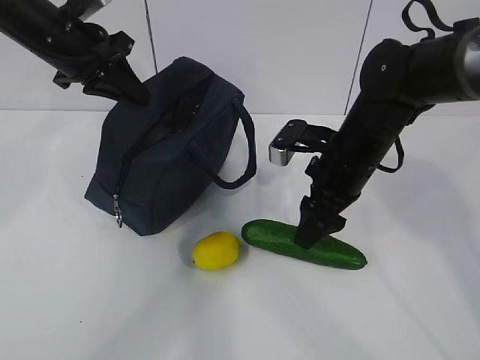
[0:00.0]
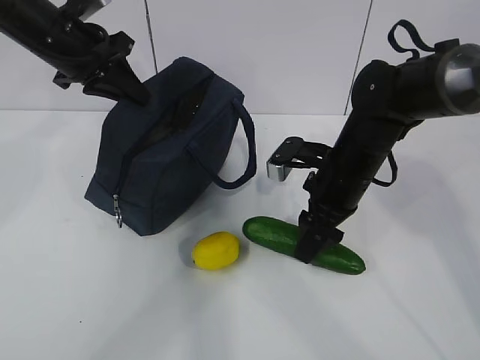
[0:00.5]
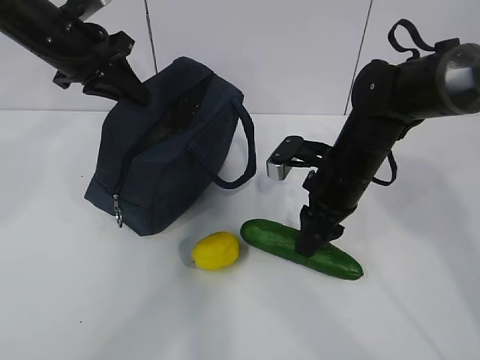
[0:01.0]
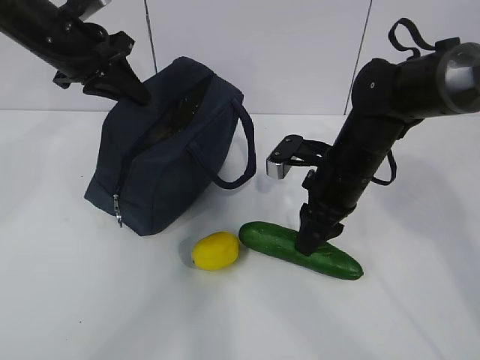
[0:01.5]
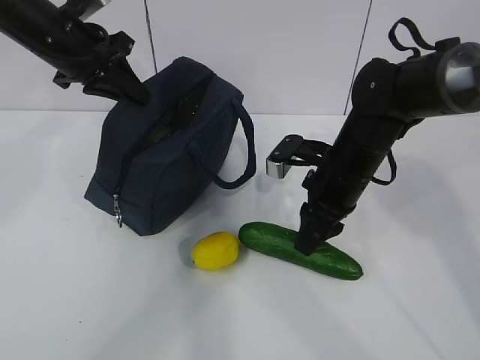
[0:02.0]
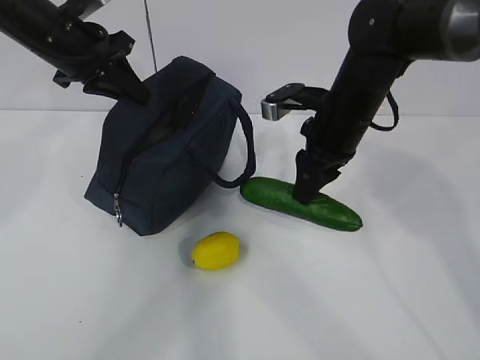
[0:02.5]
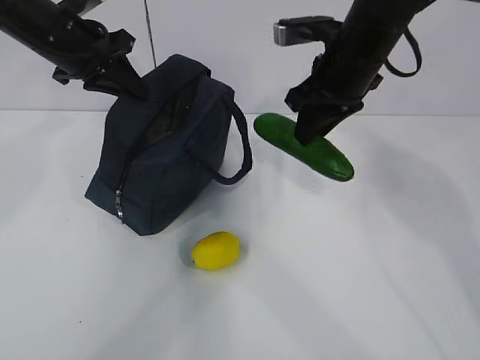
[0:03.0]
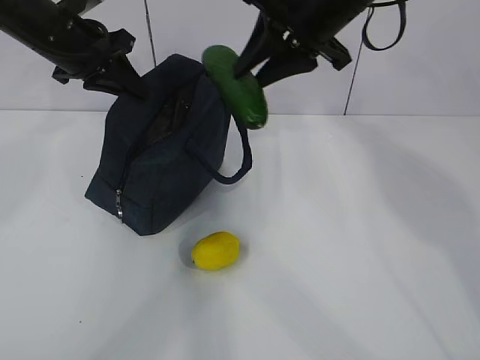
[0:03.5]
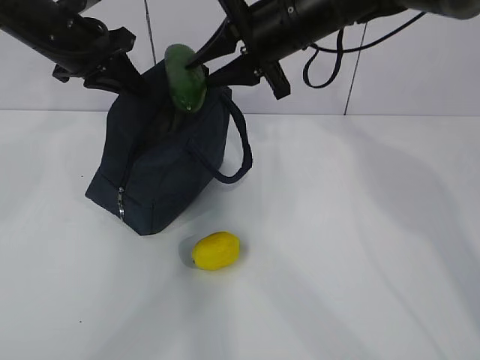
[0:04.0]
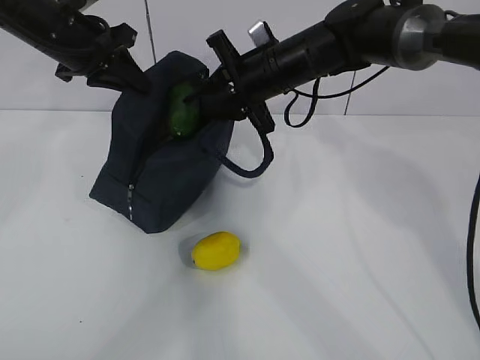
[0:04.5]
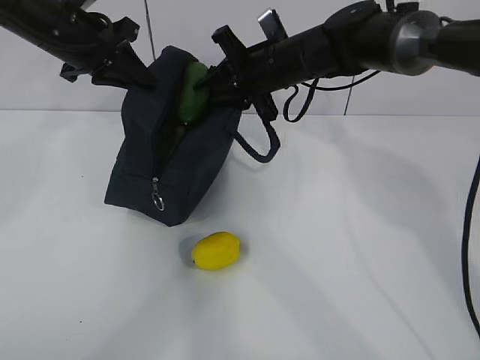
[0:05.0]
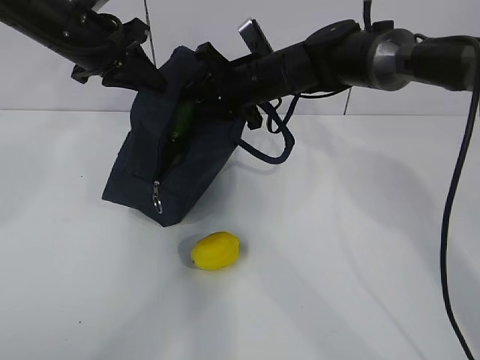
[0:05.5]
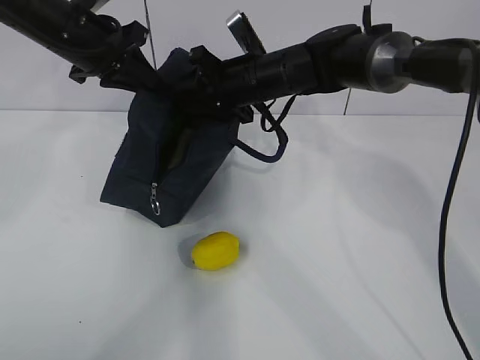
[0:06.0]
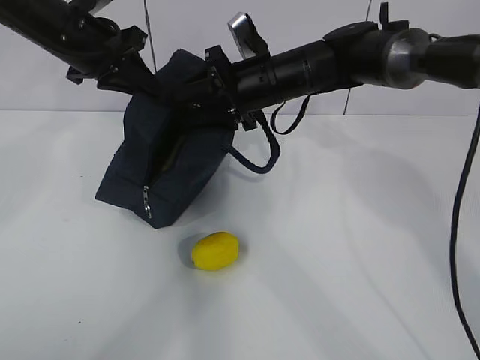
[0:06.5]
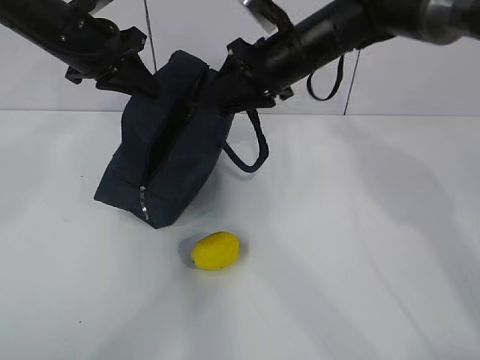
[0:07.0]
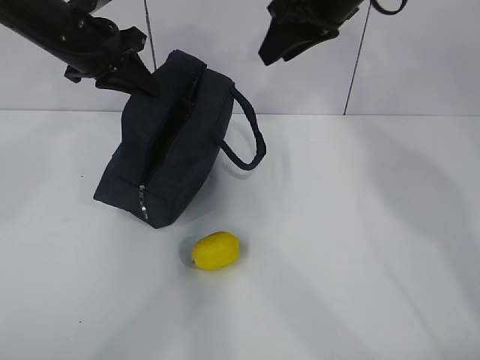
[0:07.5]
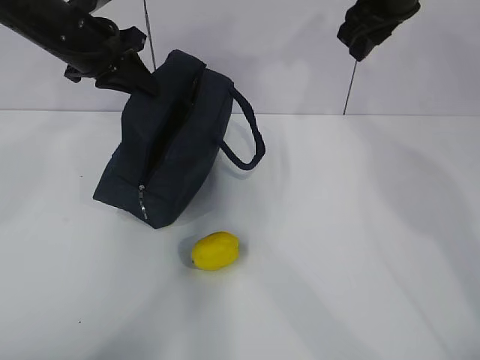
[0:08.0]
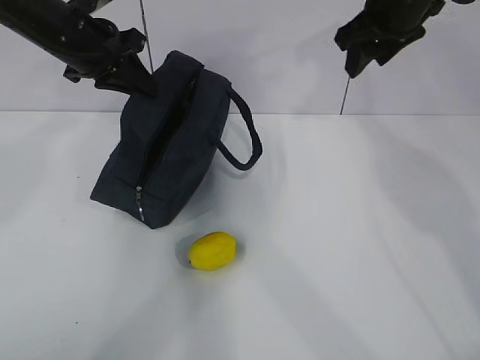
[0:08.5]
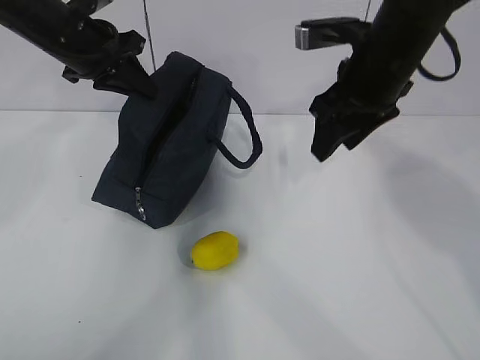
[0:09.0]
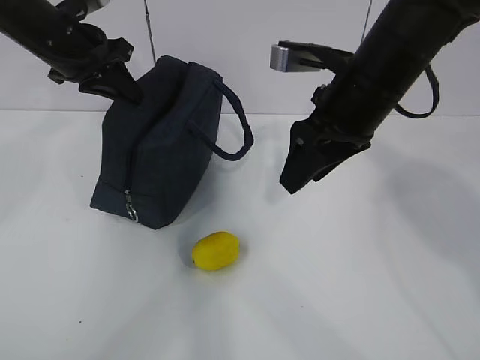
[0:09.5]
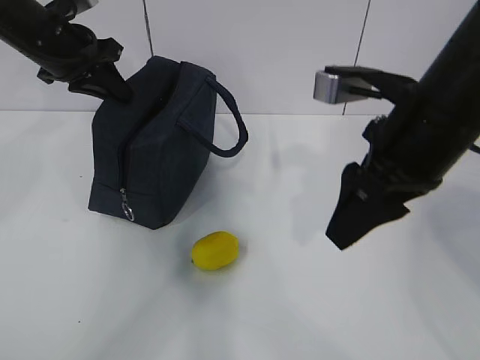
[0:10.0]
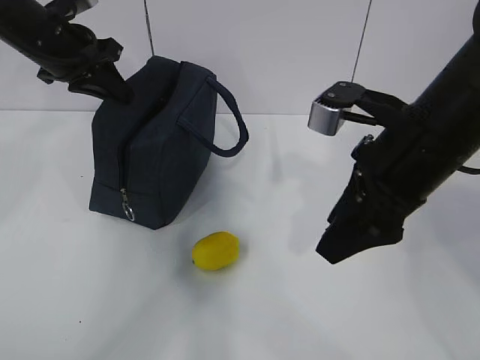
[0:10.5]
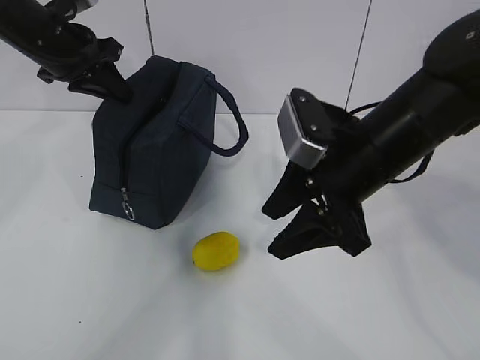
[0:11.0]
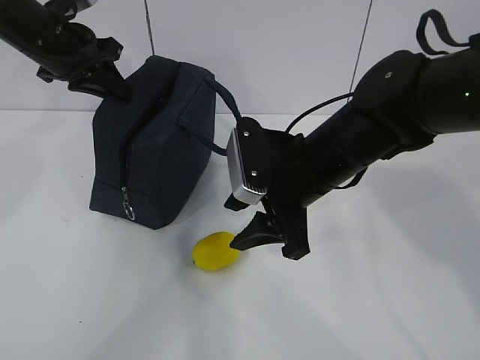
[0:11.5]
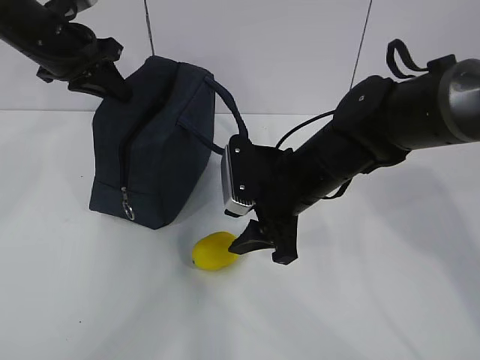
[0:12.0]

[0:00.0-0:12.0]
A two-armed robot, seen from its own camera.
Step, 0:00.0 to 0:06.5: Grab the pear with your right hand.
0:00.0 to 0:02.0: The right gripper closes its fingers.
0:02.0 to 0:04.0: The right gripper heads upward, covering about 15 cm.
0:04.0 to 0:06.0: The right gripper moves downward, roughly 10 cm.
0:06.0 to 0:08.0: The right gripper goes approximately 20 cm to the right and upward.
0:08.0 to 0:10.0: The right gripper is displaced backward by approximately 15 cm.
0:10.0 to 0:12.0: The right gripper goes roughly 15 cm downward, to the left and forward.

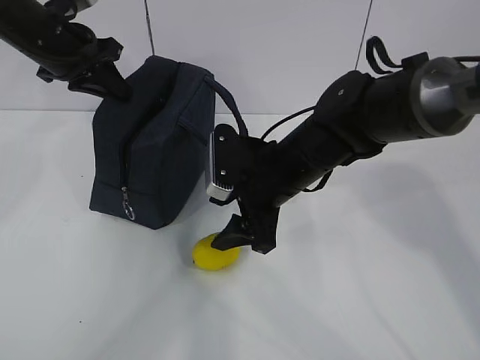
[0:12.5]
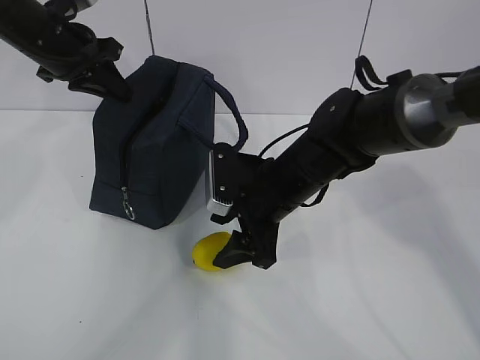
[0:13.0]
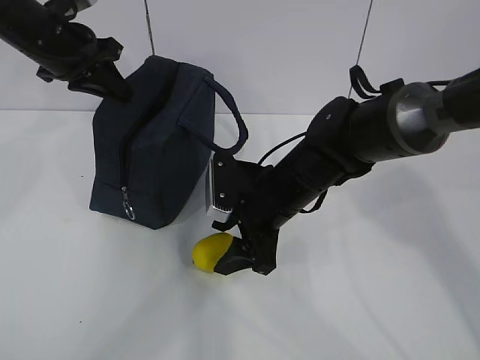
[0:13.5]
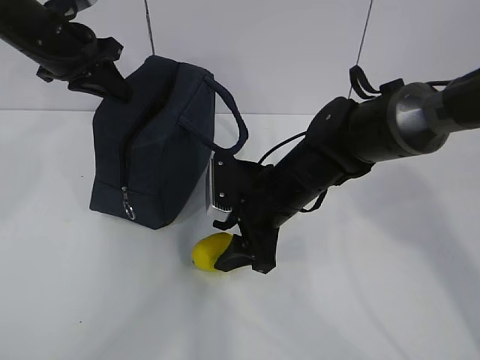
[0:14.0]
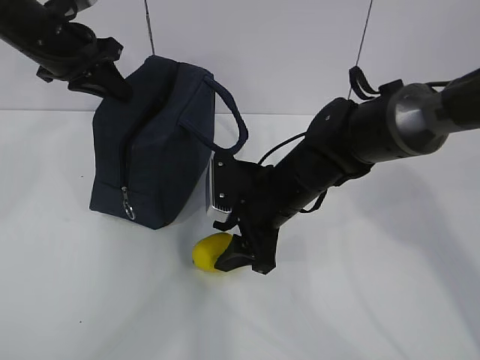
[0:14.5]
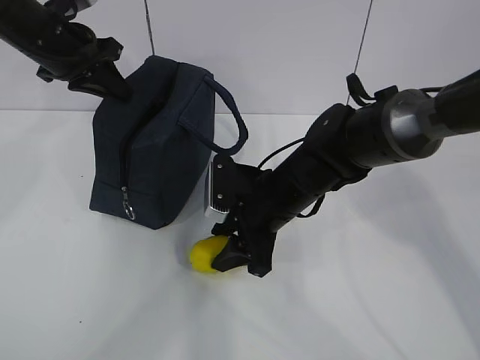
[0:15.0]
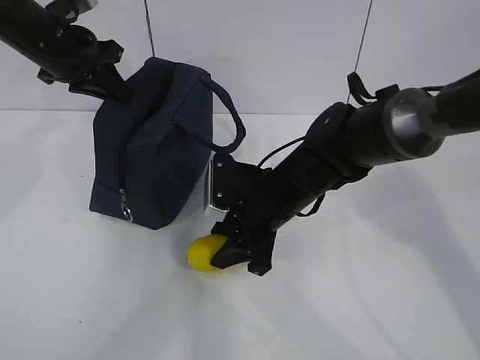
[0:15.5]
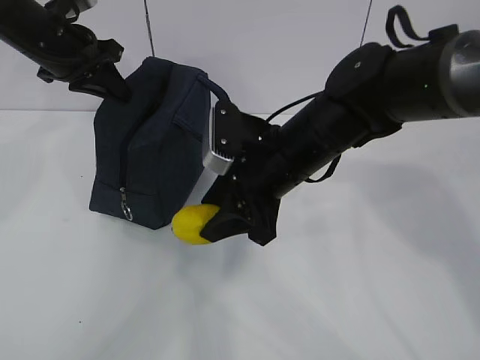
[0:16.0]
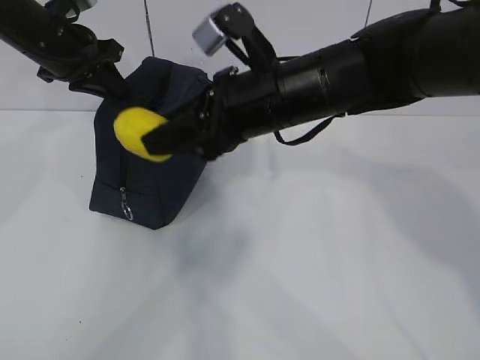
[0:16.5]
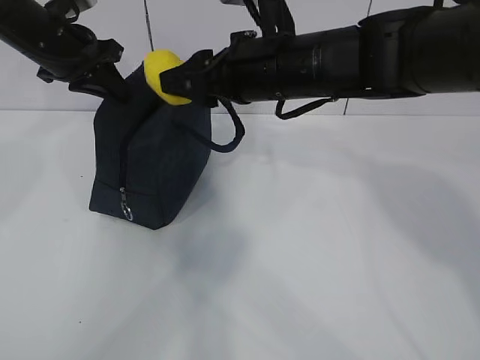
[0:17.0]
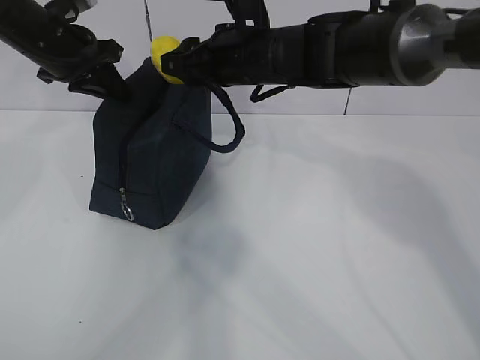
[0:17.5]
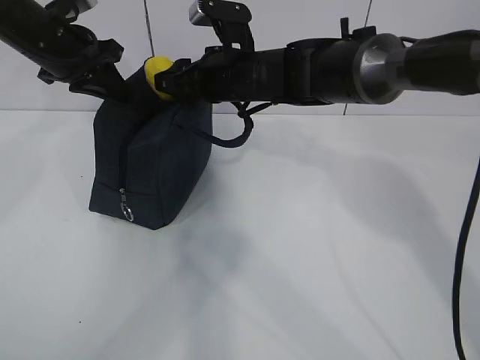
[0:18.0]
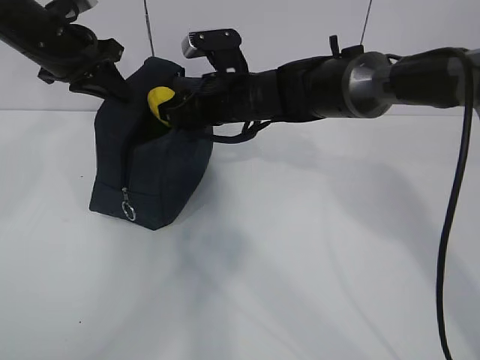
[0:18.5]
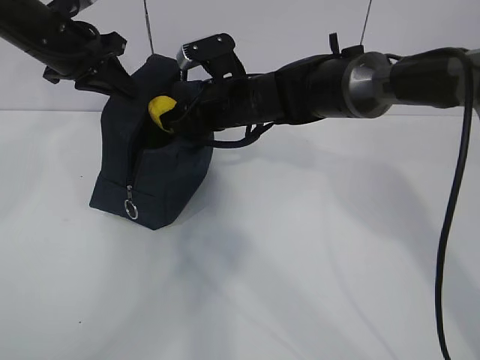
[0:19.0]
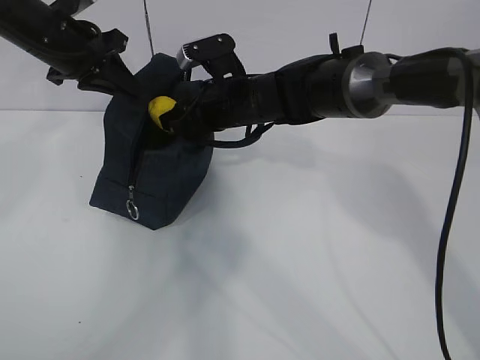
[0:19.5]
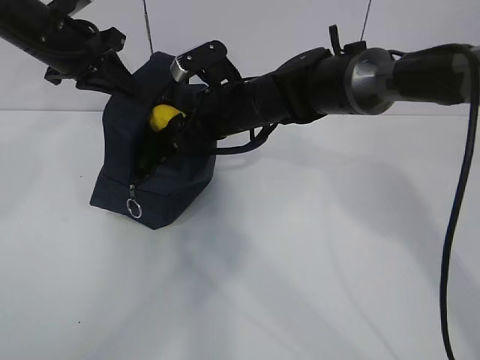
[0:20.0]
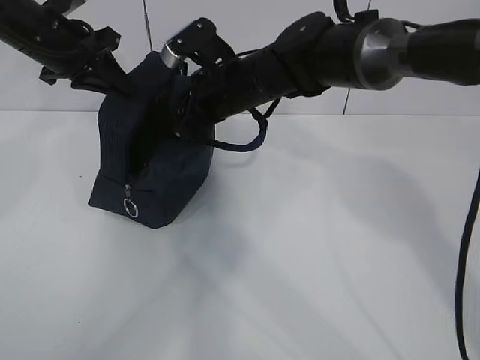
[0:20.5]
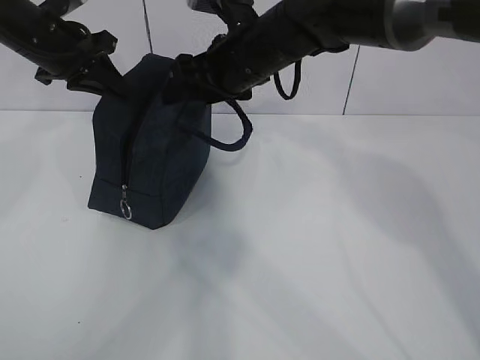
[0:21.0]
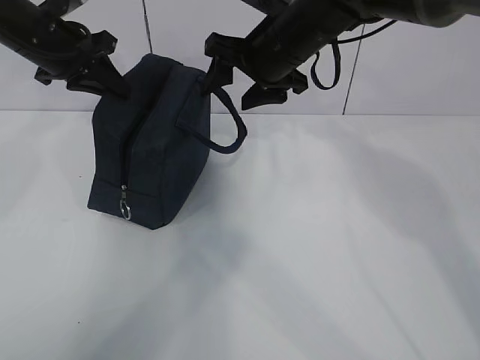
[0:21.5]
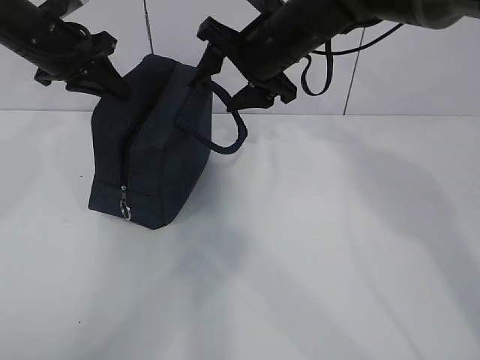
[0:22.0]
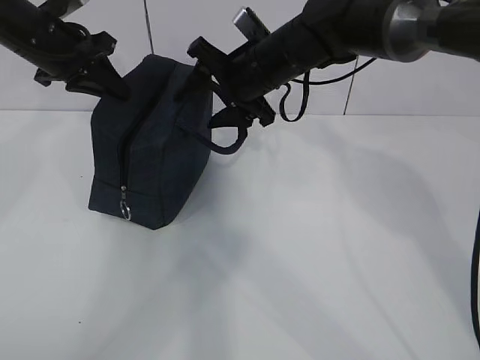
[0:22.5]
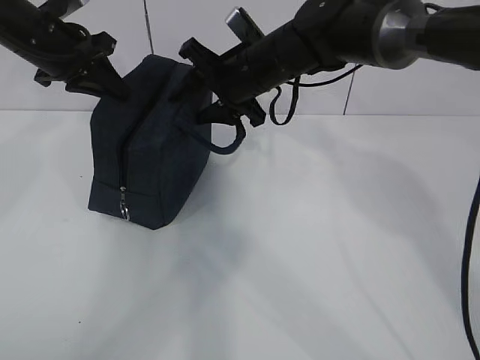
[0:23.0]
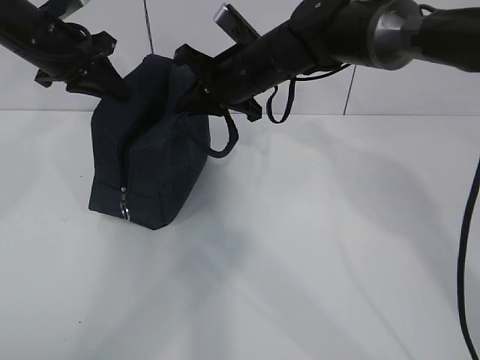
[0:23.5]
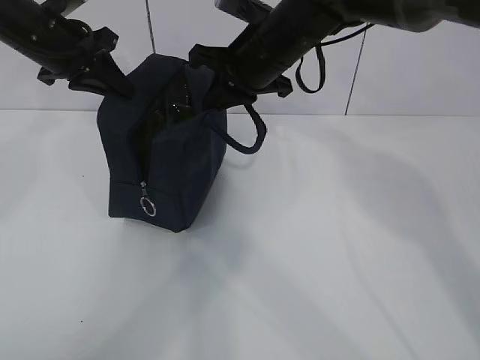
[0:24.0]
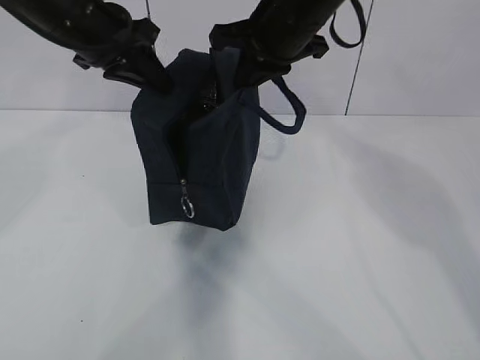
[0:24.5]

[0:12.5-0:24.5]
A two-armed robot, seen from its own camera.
Step, 0:13.5 to 0:18.0: Move the lunch bag to the right.
0:12.5 to 0:14.5: The grippers make only small movements.
0:14.5 to 0:16.5: The right gripper is displaced upward by some 15 cm.
0:16.5 to 0:18.5: The right gripper goes roughly 15 cm forward and downward.
0:22.5 to 0:24.5: The right gripper goes some 5 cm upward, and closes up; the left gripper shifts about 5 cm to the right.

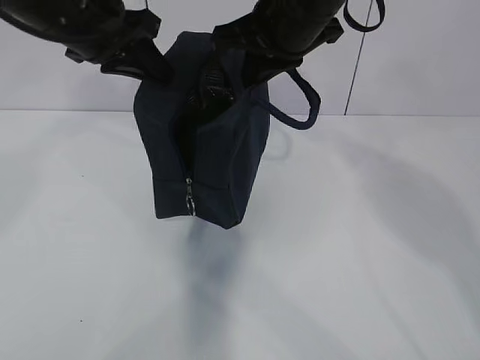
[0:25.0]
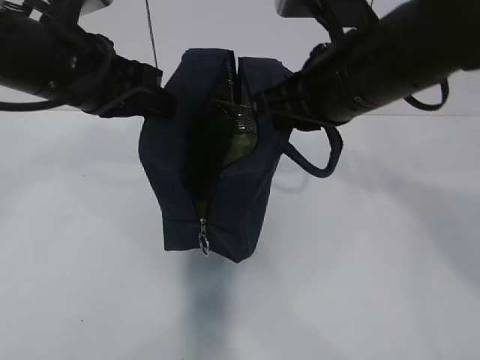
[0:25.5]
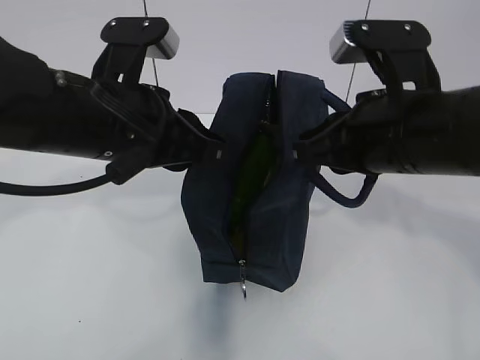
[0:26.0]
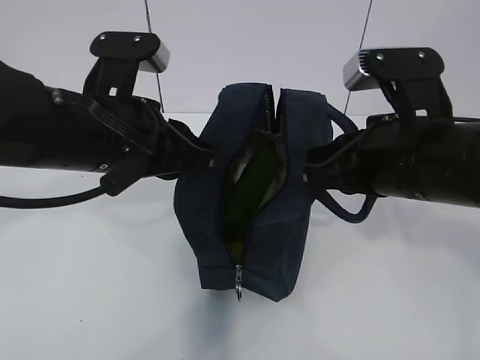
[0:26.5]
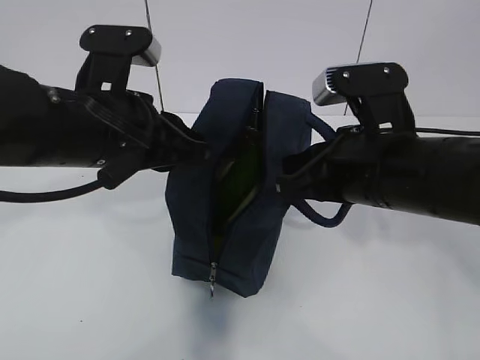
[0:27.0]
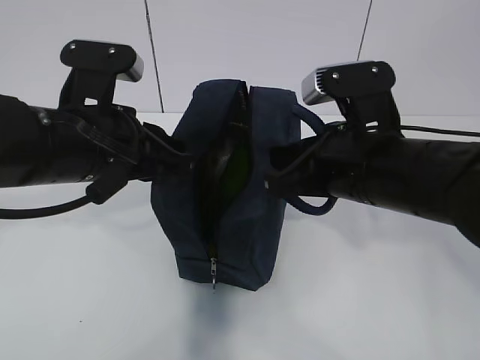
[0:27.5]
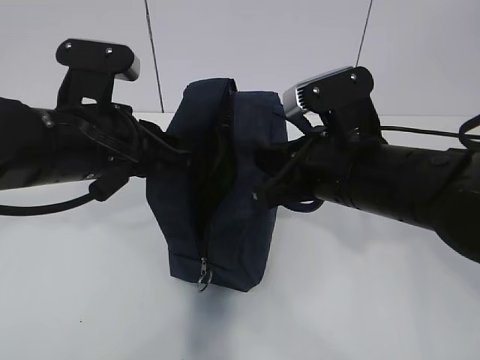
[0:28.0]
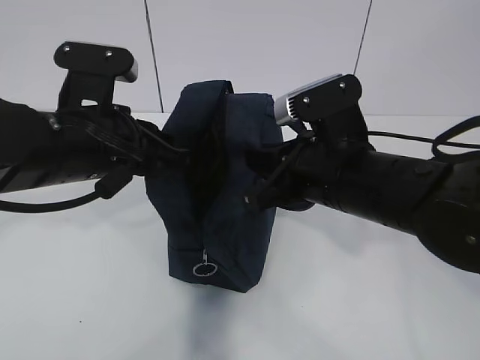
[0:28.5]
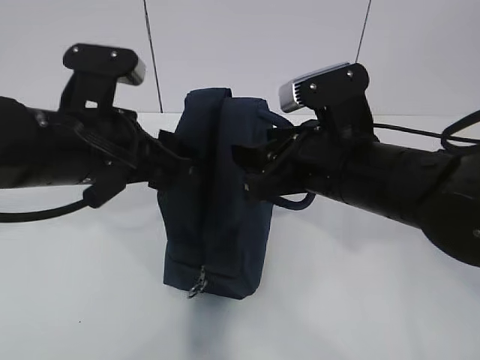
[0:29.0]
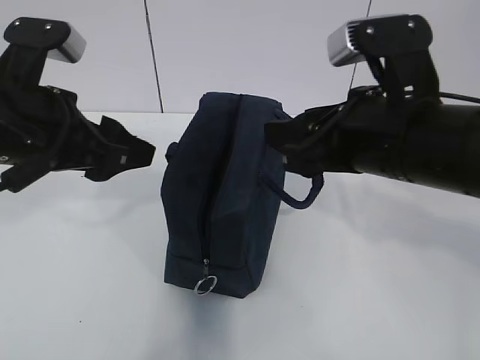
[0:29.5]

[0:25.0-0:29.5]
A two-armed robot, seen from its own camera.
0:25.0 to 0:27.0: The left gripper shifts roughly 15 cm backward and downward. Meanwhile the right gripper shifts roughly 15 cm backward, downward and to the right.
0:27.0 to 0:29.5: The left gripper shifts roughly 5 cm to the left, and opens its fingers. Meanwhile the right gripper opens up.
